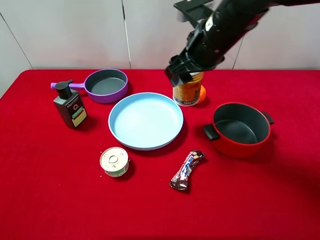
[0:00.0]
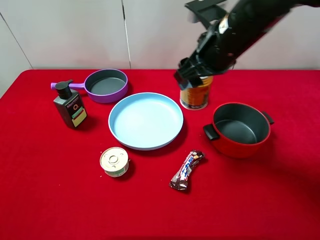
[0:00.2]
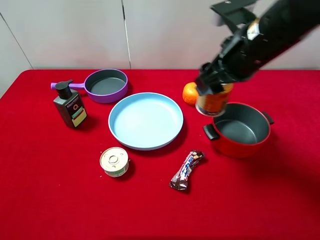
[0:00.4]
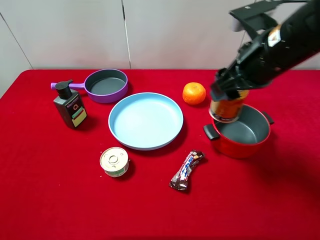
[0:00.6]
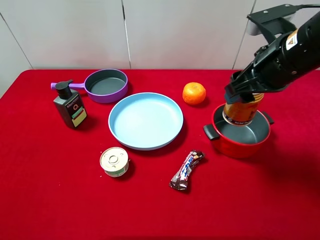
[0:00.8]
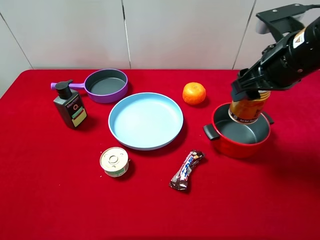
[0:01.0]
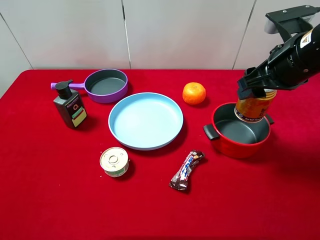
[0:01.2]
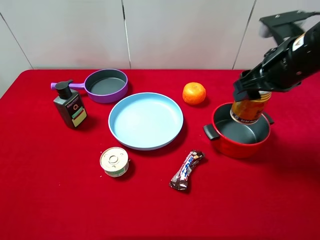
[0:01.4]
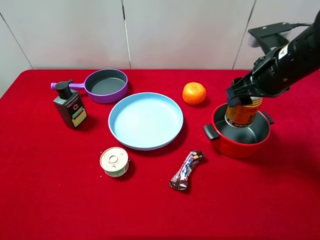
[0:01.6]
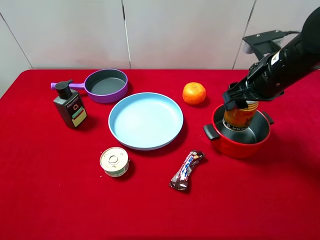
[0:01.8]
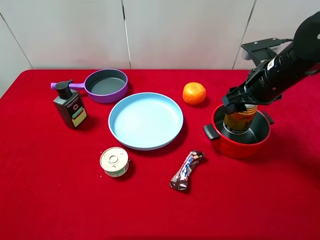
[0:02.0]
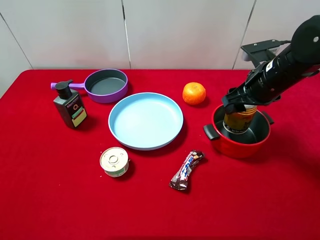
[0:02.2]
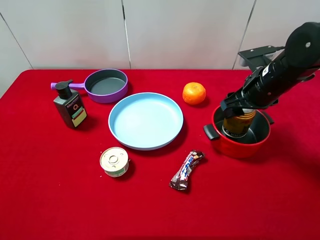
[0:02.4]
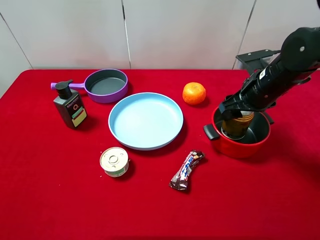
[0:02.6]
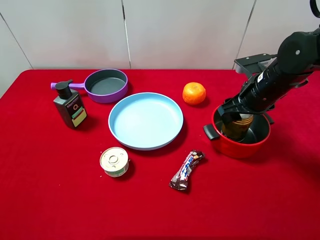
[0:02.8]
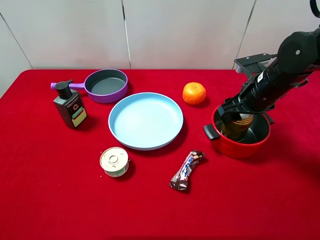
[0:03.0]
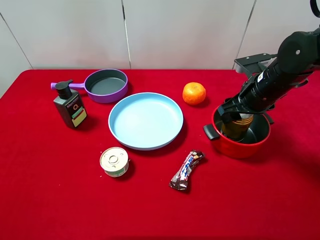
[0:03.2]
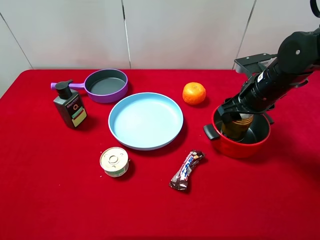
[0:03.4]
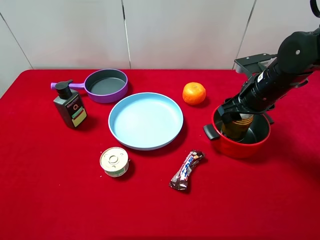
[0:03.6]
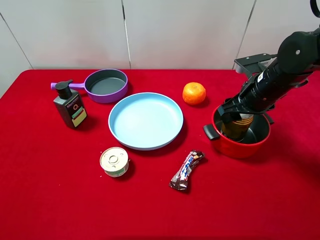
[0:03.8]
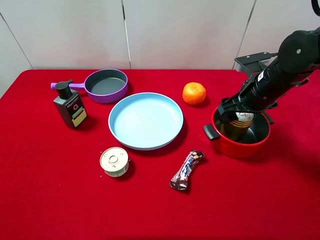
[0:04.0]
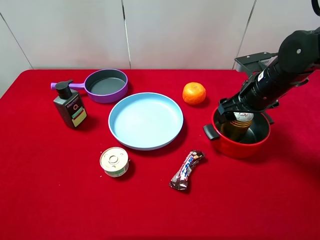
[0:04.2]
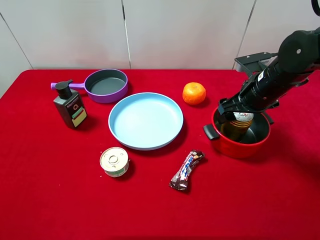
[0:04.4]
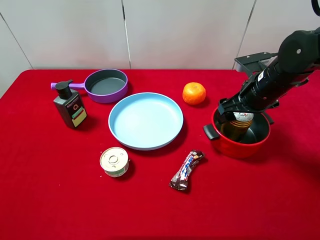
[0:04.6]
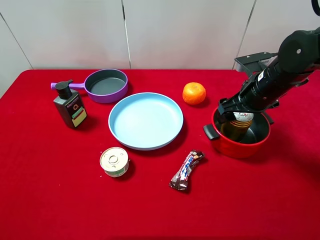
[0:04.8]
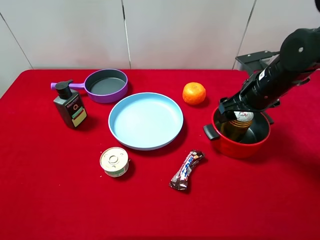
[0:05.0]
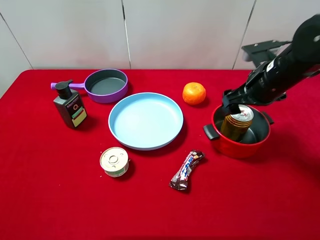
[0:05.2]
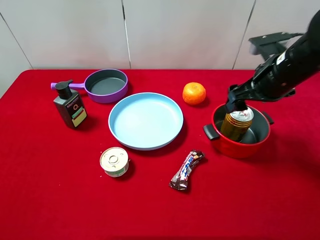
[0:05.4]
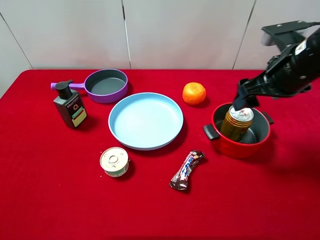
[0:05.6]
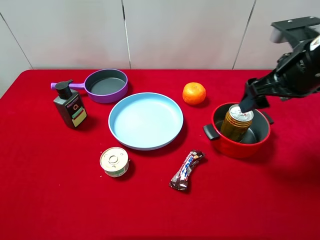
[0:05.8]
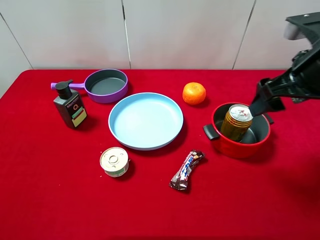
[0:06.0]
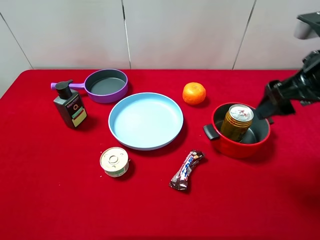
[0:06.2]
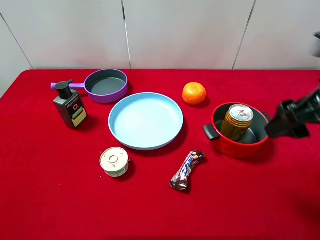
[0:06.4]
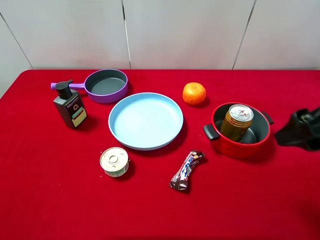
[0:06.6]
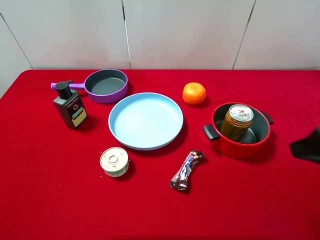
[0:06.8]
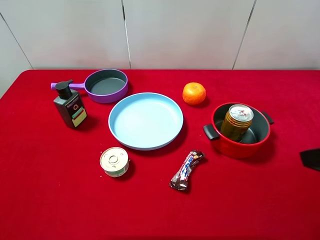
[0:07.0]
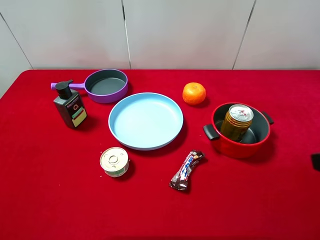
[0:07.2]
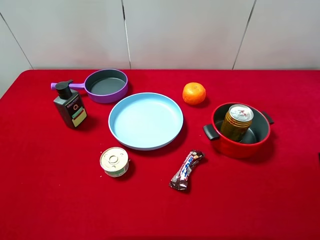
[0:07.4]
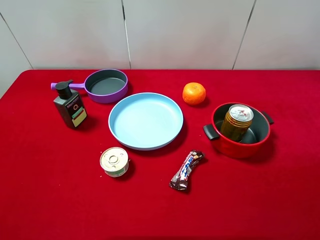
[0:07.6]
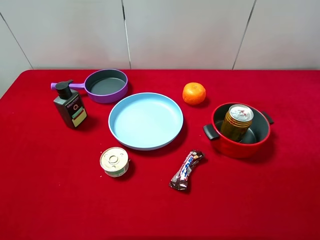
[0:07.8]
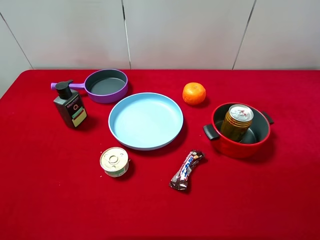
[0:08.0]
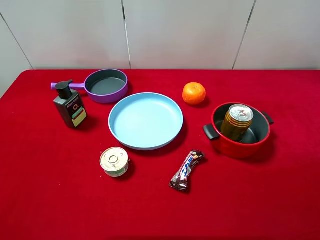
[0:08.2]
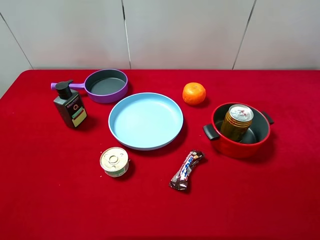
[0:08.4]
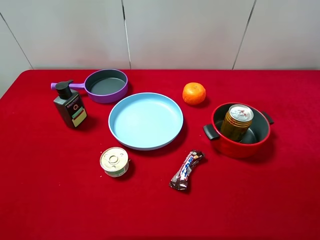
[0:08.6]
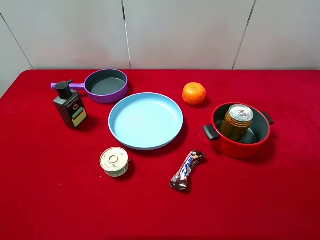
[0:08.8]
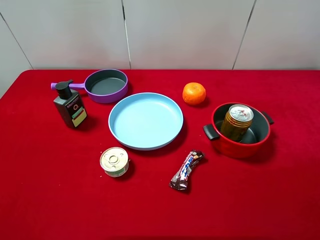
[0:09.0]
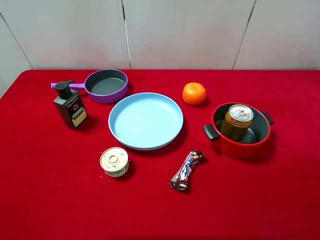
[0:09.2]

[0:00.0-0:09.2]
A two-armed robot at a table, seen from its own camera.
Task of the whole recording: pick up an item with a gripper and place it in a random container on the desktop.
0:00.0 to 0:01.6: The right gripper travels to the right by about 10 cm.
0:01.6 to 0:03.0: The right gripper shifts some 5 cm downward.
0:03.0 to 0:04.6: The right gripper opens up.
0:04.6 to 0:06.2: The right gripper goes some 15 cm upward and backward.
0:06.2 to 0:07.6: The right gripper moves backward, about 15 cm.
